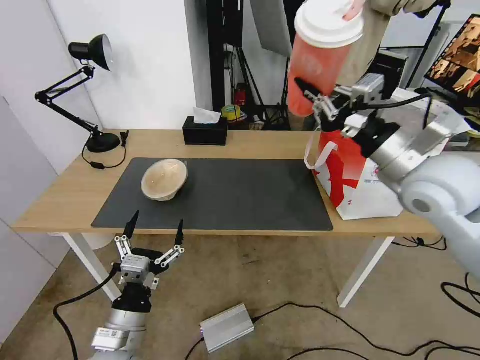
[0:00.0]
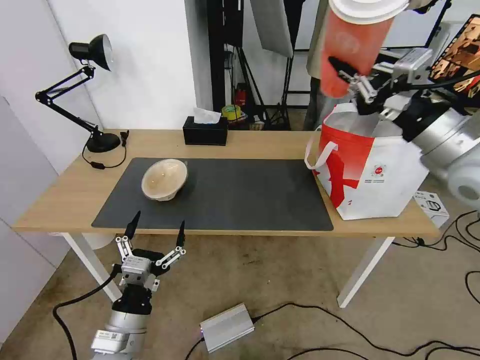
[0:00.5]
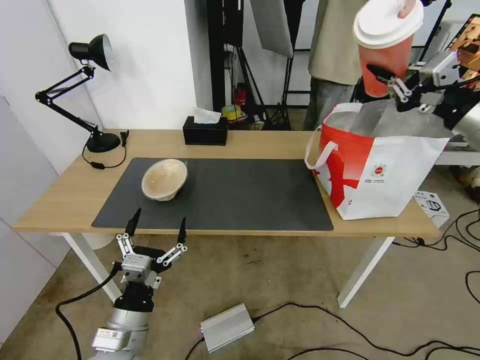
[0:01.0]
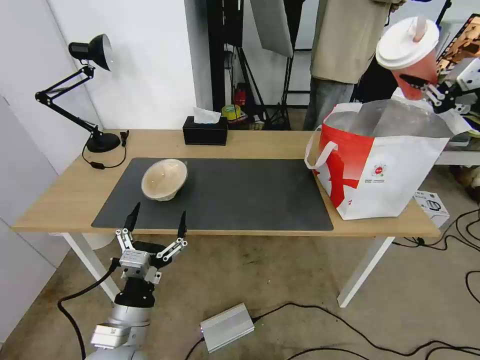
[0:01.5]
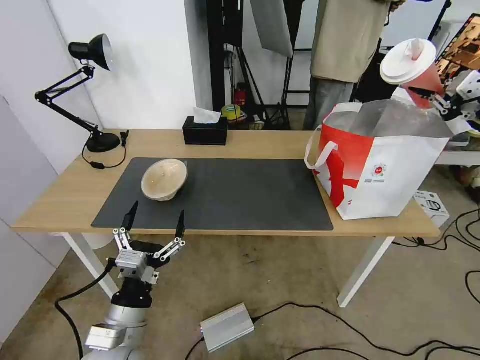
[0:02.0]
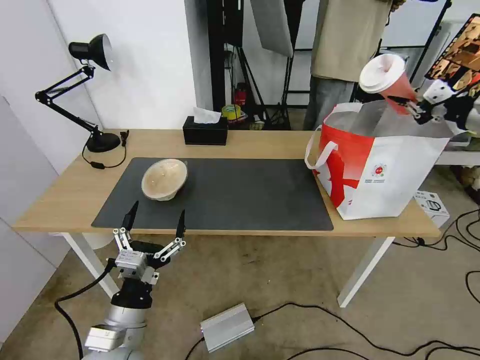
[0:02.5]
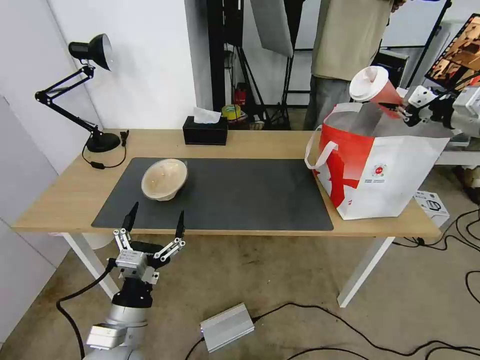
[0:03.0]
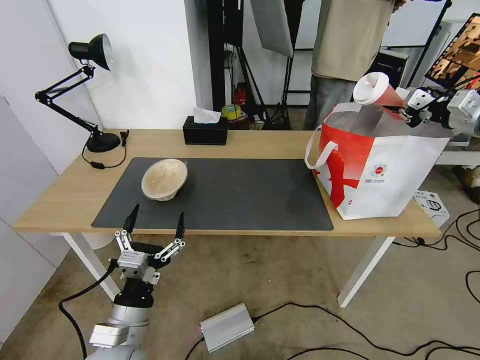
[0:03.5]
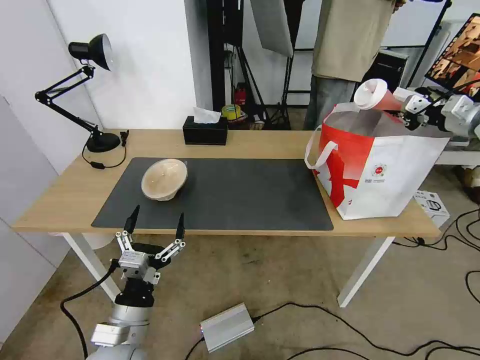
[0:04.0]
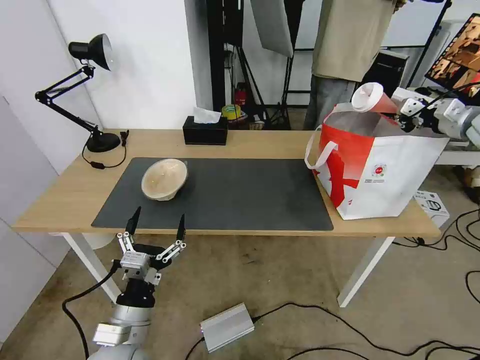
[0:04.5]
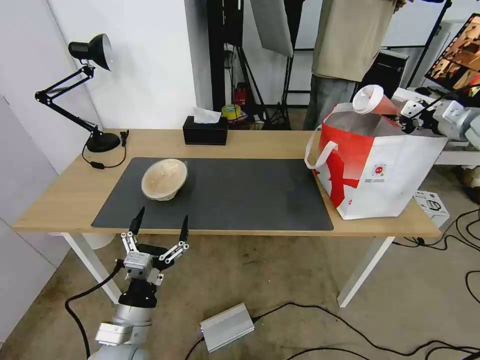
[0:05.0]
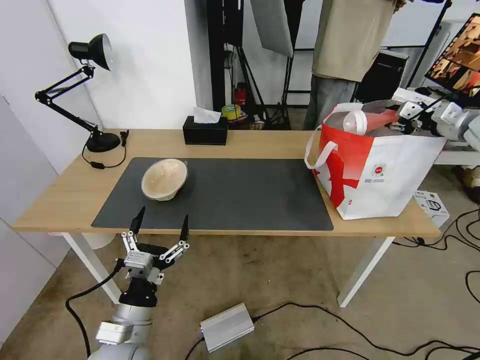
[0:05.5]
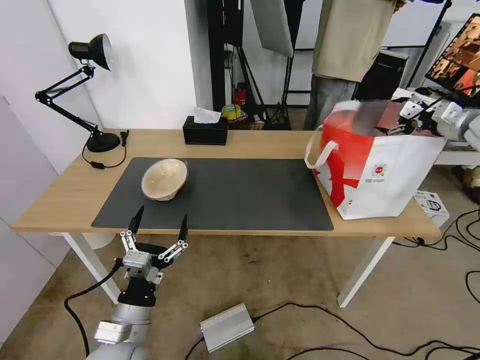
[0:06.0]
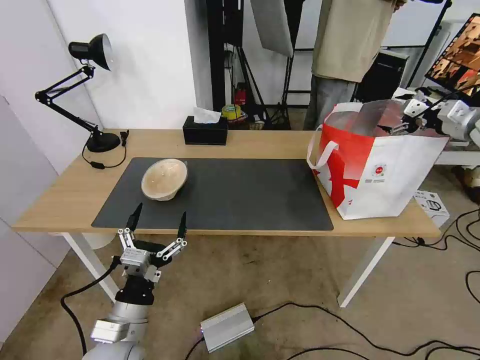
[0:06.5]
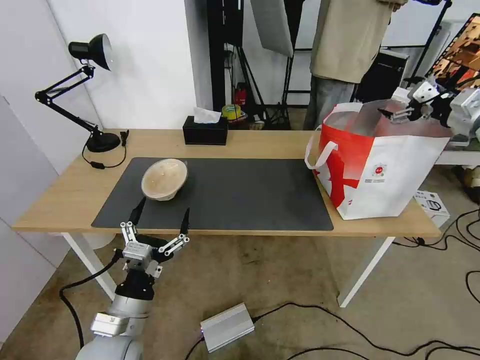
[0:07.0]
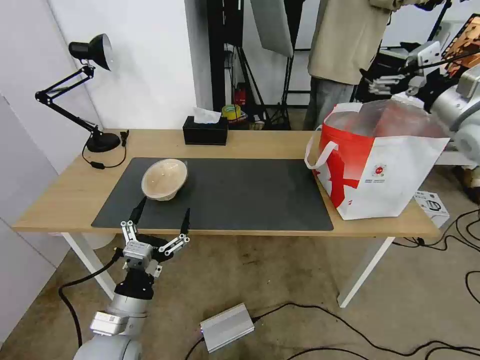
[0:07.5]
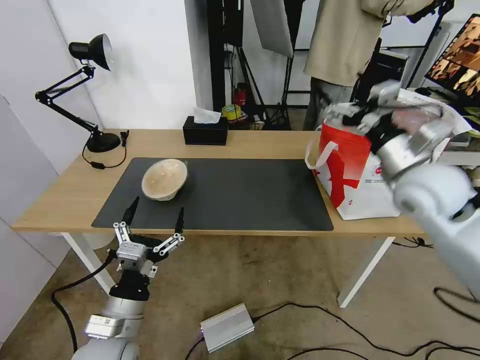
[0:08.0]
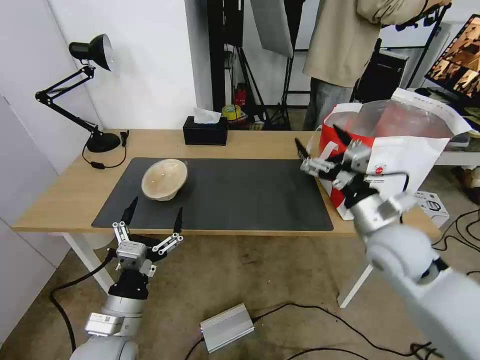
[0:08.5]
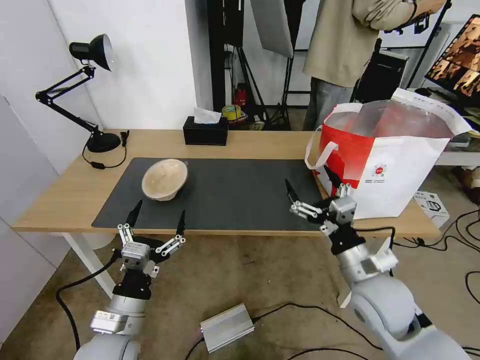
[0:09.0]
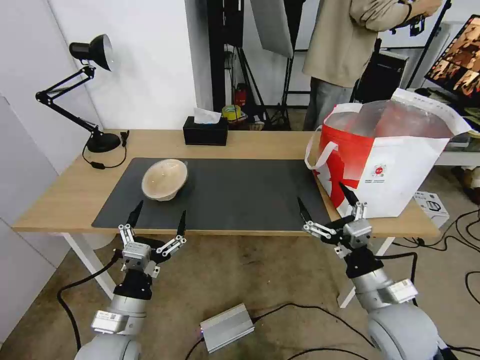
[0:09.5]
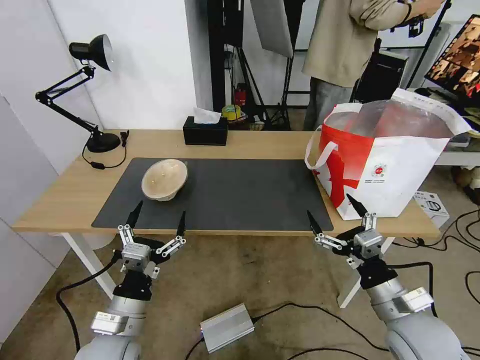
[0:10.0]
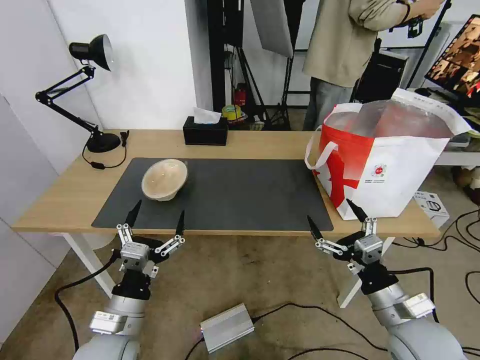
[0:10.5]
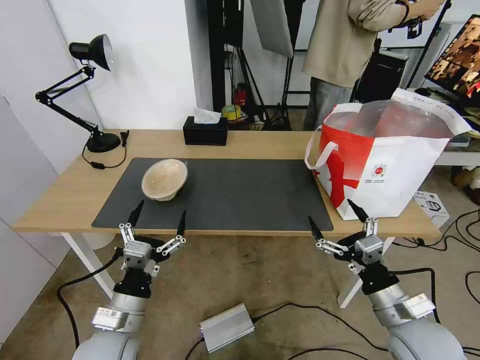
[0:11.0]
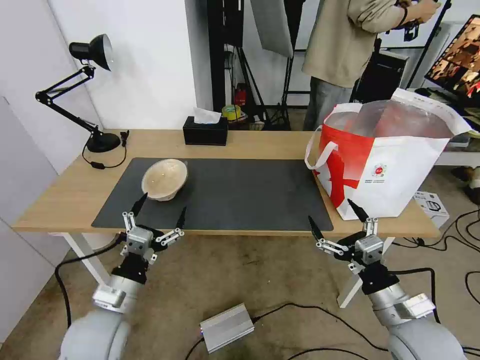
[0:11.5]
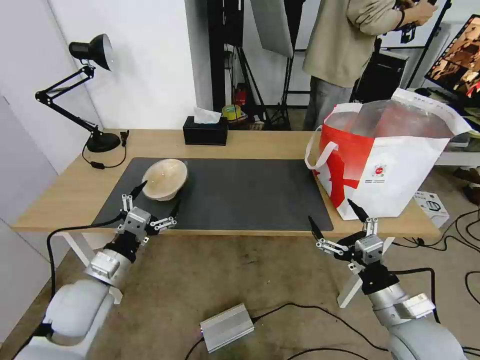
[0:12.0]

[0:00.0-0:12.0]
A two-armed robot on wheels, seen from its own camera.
Task of the whole recording: Pick up the trash from the table and place it into the takeout bag.
0:00.0 to 0:02.0: The right gripper goes some 25 cm to the right.
0:02.0 to 0:04.0: The right gripper is displaced forward and downward by about 15 cm.
0:04.0 to 0:06.0: The right gripper opens up.
0:06.0 to 0:08.0: The right gripper shifts roughly 30 cm to the left and backward.
0:08.0 to 0:10.0: The right gripper shifts some 25 cm backward and downward.
0:10.0 to 0:12.0: The left gripper heads forward and to the left, covering about 10 cm.

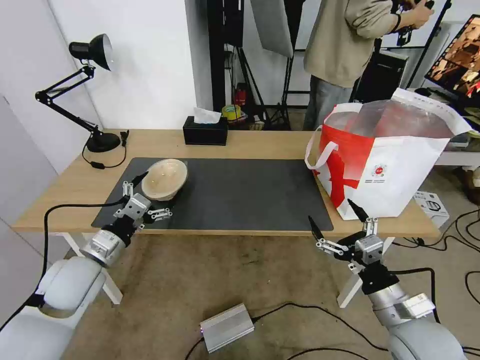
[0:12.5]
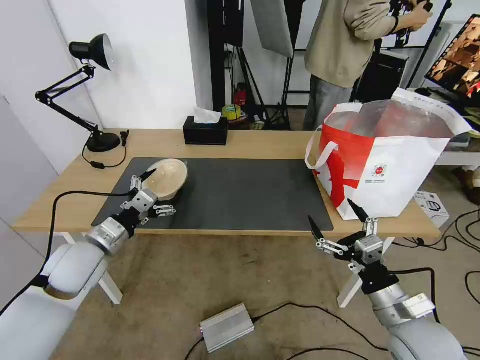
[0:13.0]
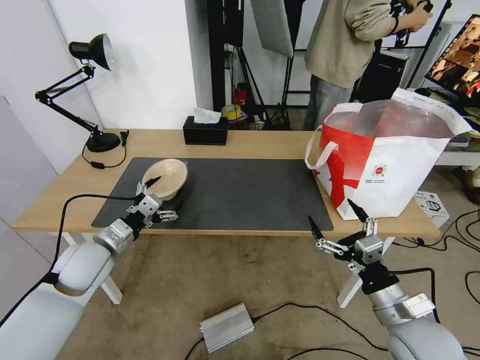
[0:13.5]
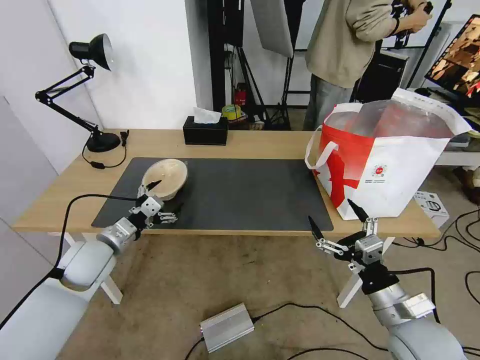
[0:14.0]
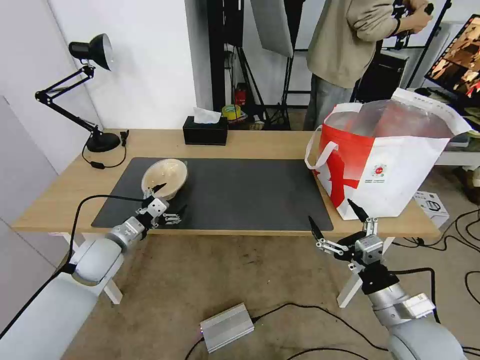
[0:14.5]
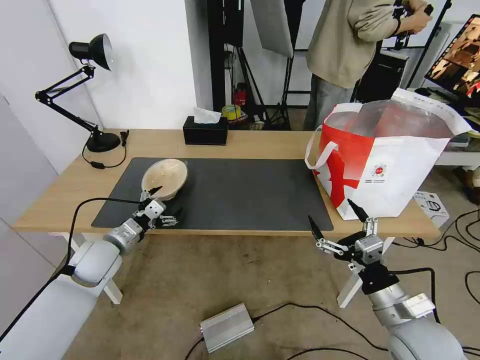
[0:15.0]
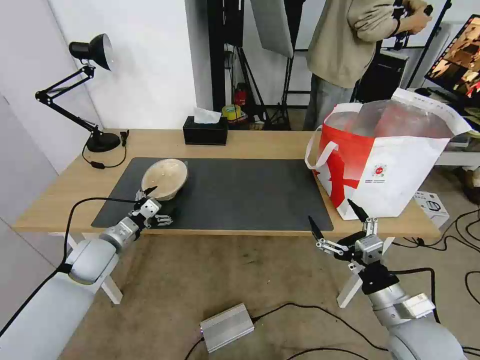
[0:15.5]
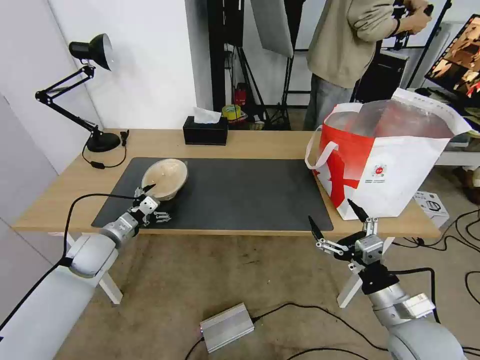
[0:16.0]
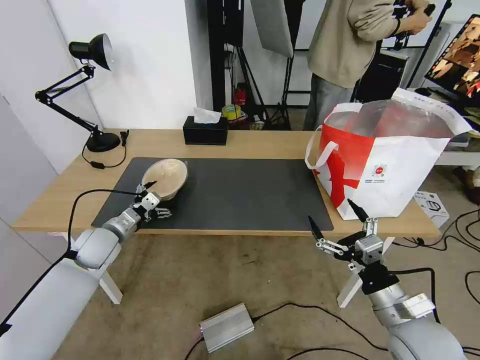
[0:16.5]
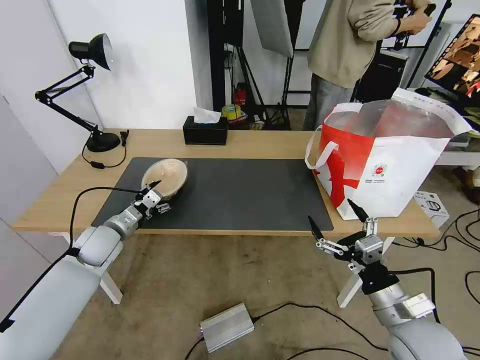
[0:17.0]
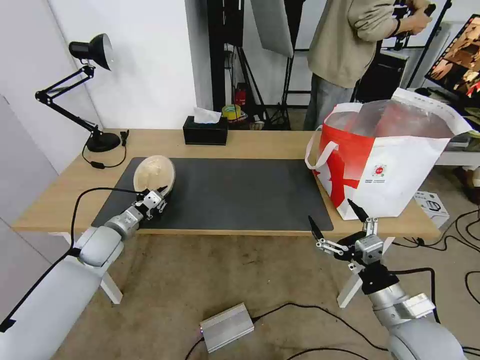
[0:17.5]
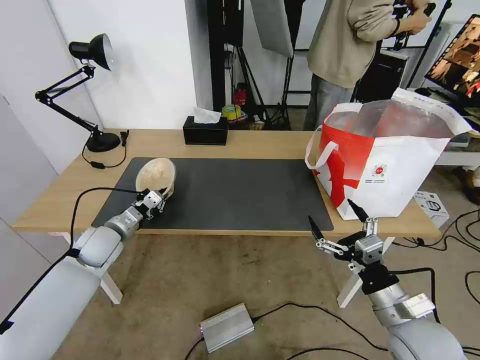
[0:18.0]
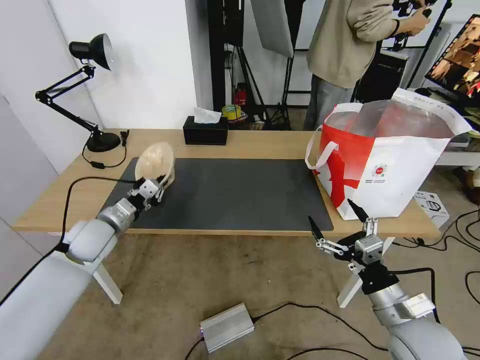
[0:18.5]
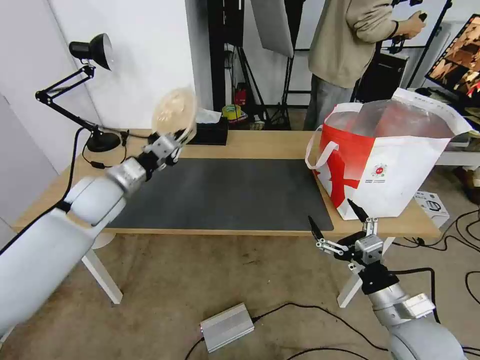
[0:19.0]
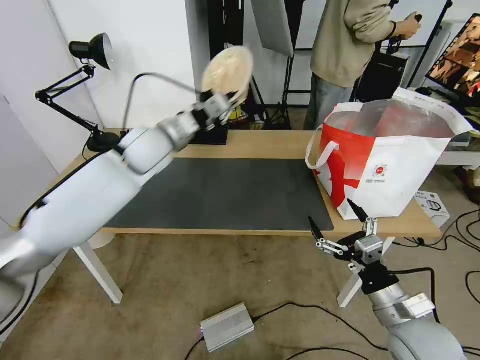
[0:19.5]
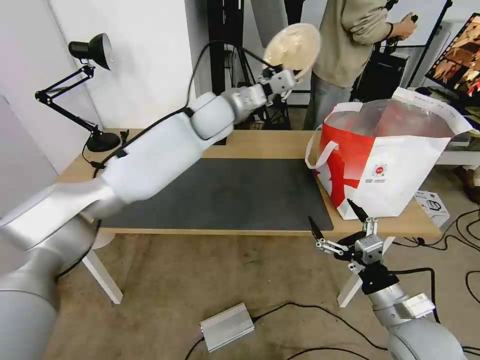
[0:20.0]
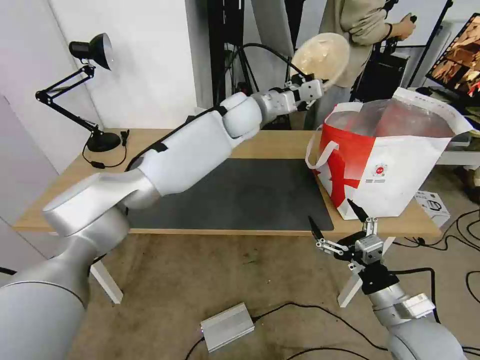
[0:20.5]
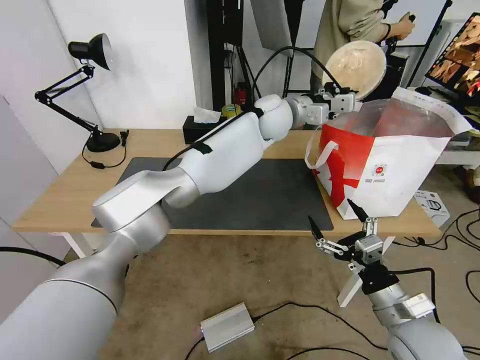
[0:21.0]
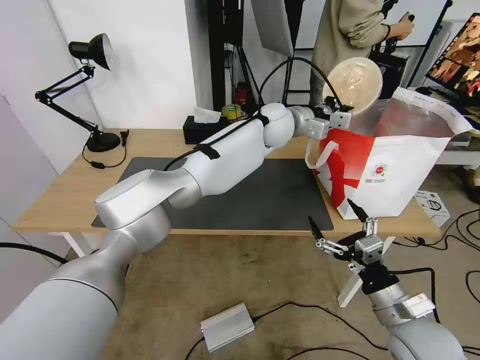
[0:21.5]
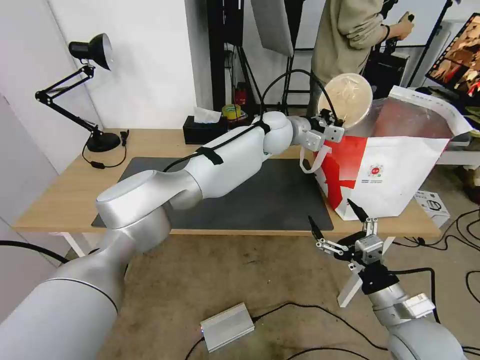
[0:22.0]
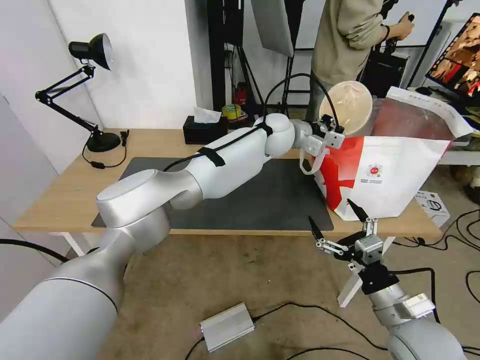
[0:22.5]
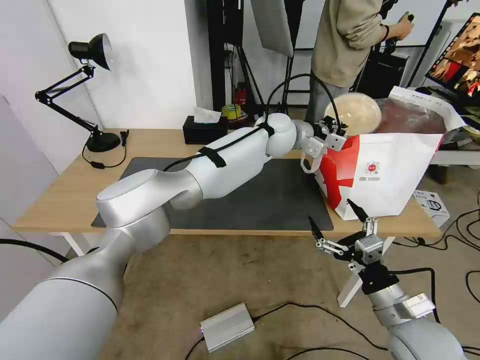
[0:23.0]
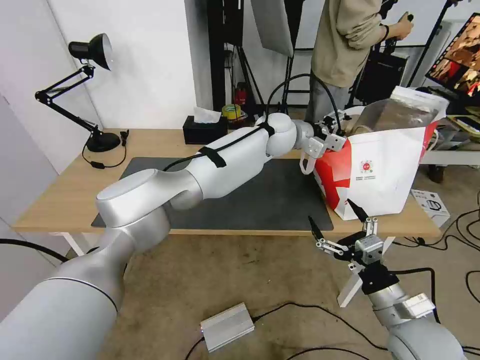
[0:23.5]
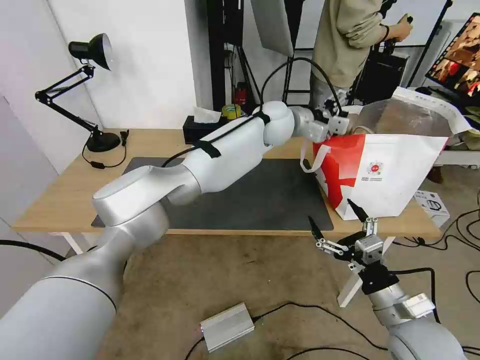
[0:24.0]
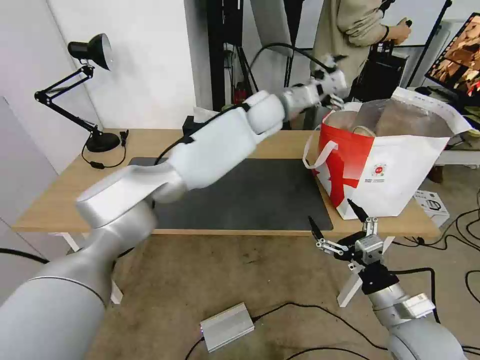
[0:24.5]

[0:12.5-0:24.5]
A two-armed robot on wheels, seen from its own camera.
Task of the whole recording: Pick up the trash from the table and place it into the takeout bag.
0:12.5 to 0:14.5: The left gripper is displaced forward by some 5 cm.
0:14.5 to 0:16.5: The grippers move only a little.
0:16.5 to 0:18.5: The left gripper closes its fingers.
0:18.5 to 0:20.5: The left gripper travels to the right, upward and forward by about 40 cm.
0:20.5 to 0:22.5: The left gripper moves to the right and downward, some 10 cm.
0:22.5 to 0:24.5: The left gripper goes some 5 cm upward, and opens.

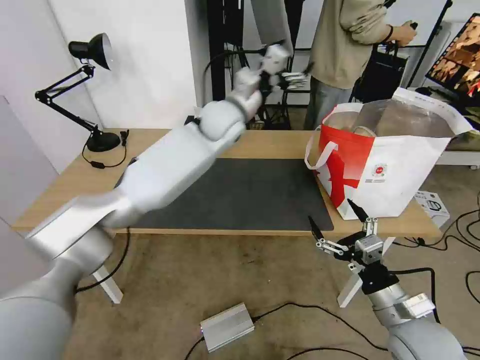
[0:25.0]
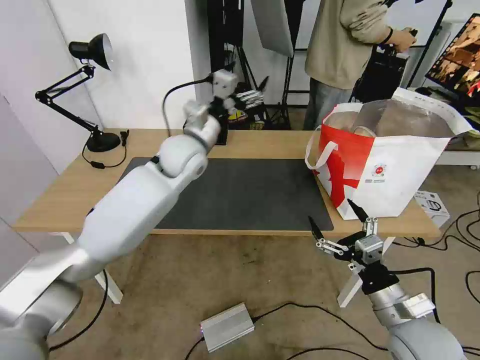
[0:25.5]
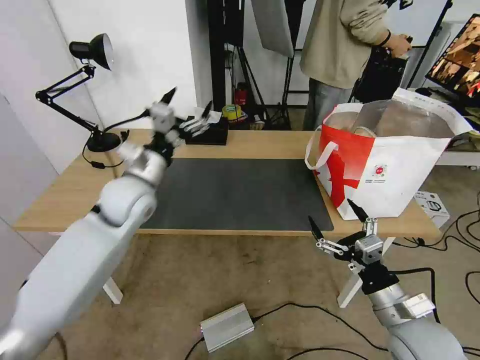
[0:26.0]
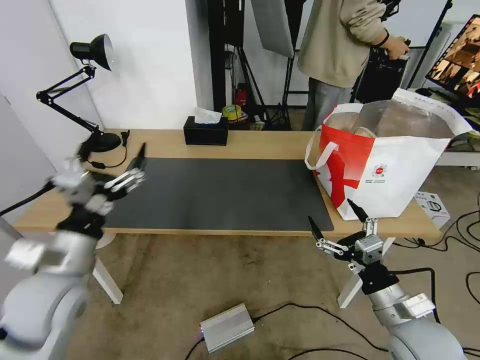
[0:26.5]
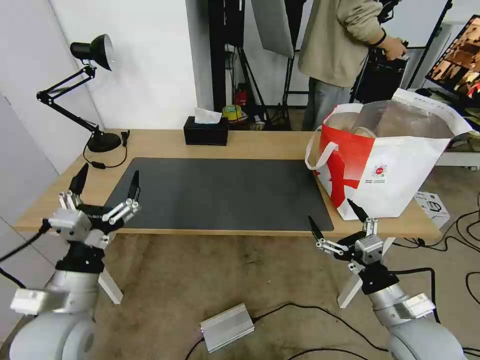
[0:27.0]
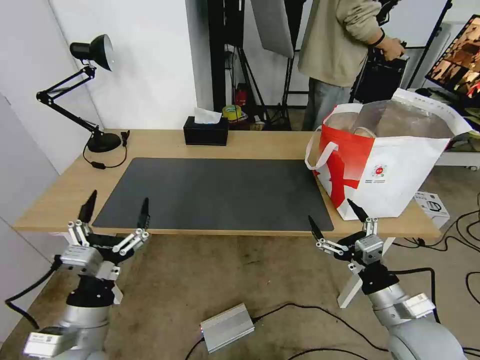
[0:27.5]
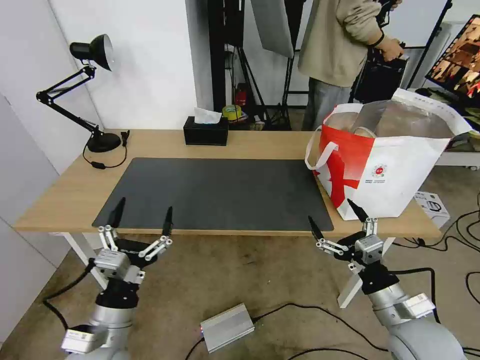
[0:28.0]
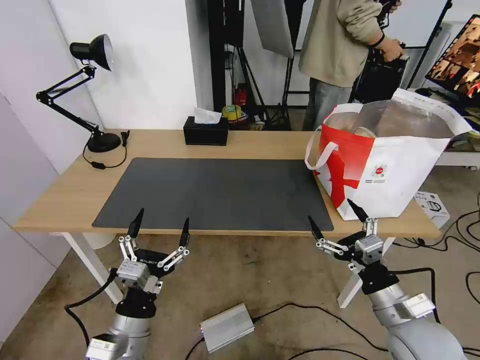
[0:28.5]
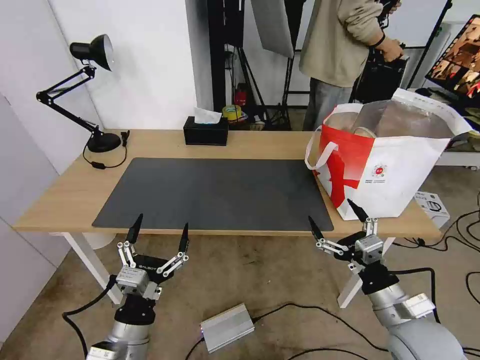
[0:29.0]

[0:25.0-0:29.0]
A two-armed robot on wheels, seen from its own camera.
Task of the whole recording: Pick up the trash from the table and place it into the takeout bag.
0:25.0 to 0:27.0: The left gripper moves backward, to the left and downward, some 50 cm.
0:27.0 to 0:29.0: The left gripper heads downward, to the right and backward, covering approximately 15 cm.
